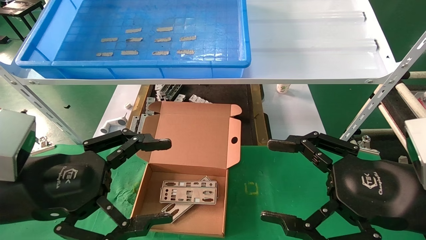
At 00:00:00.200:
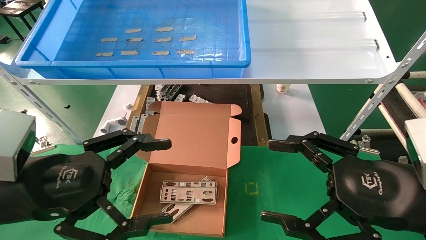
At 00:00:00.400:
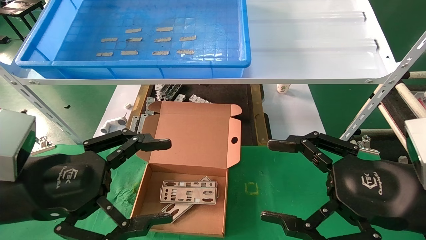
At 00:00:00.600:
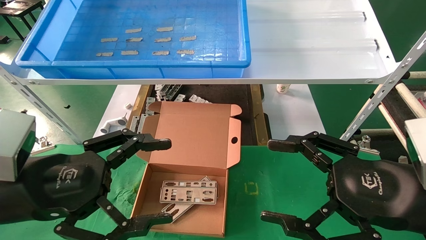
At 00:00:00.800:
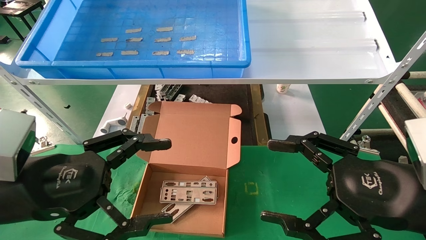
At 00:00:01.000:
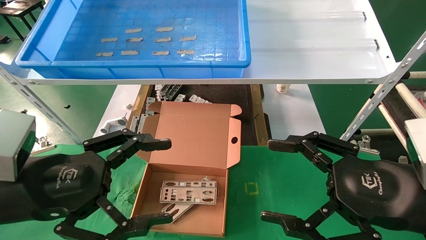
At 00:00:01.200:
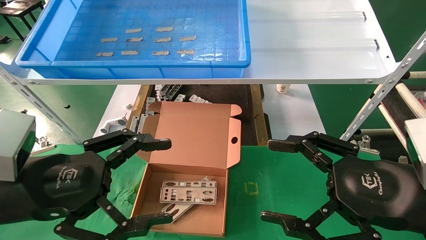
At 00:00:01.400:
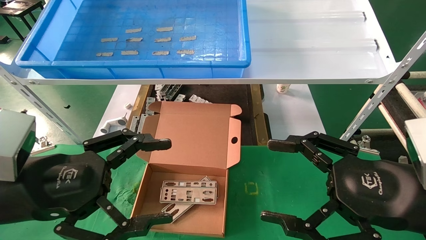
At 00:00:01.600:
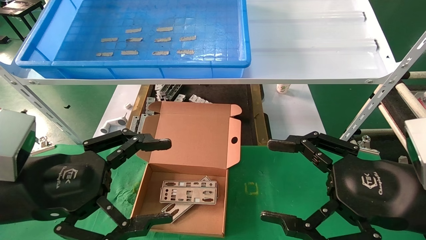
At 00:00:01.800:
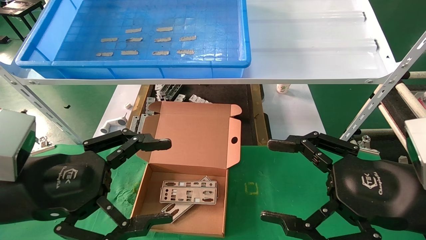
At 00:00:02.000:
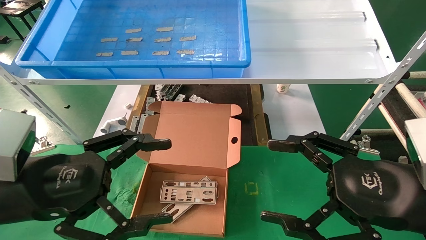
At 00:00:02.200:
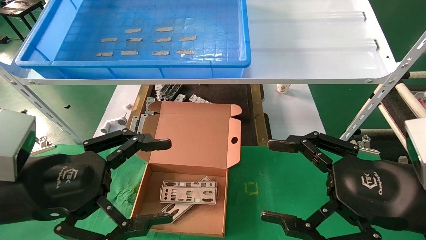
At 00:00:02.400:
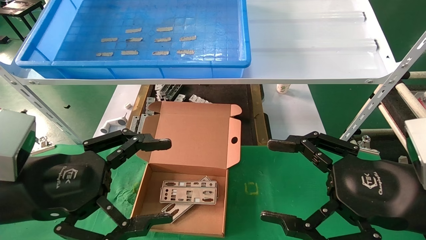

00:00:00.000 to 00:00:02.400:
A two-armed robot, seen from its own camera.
Task of the whole recording: pick up the parts on the tray and put them in the cardboard box.
00:00:00.000 to 00:00:02.400: Neither gripper changes place.
